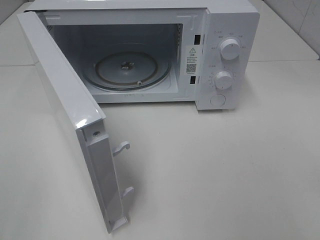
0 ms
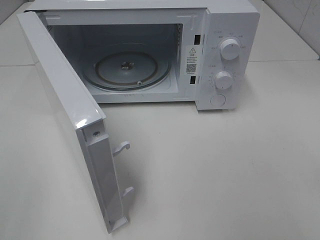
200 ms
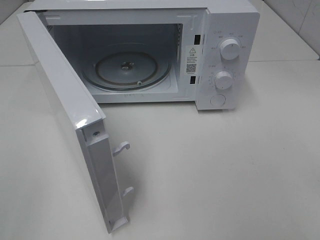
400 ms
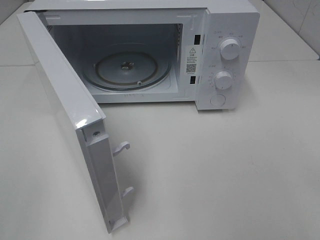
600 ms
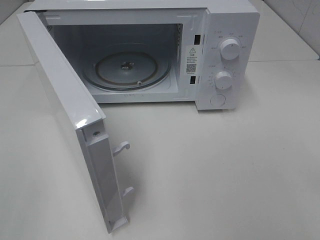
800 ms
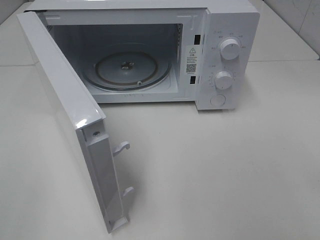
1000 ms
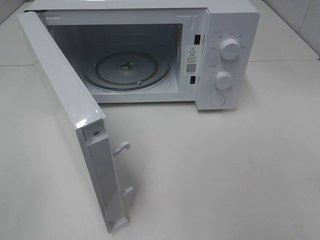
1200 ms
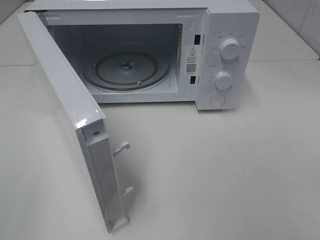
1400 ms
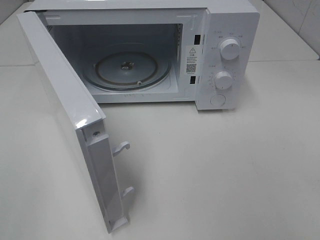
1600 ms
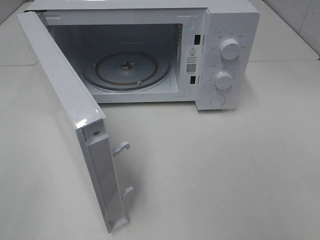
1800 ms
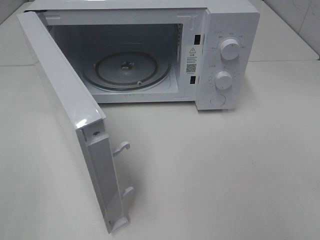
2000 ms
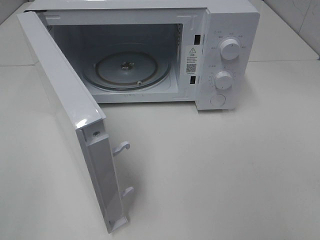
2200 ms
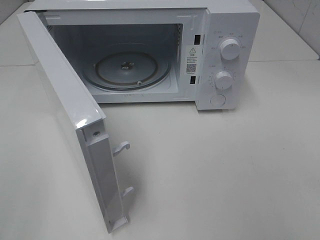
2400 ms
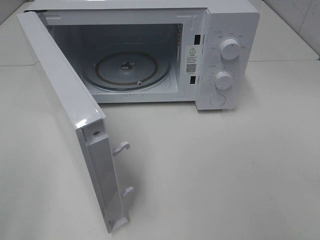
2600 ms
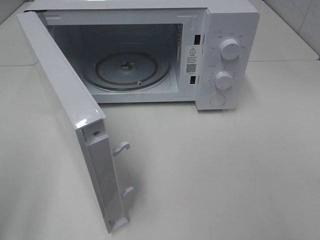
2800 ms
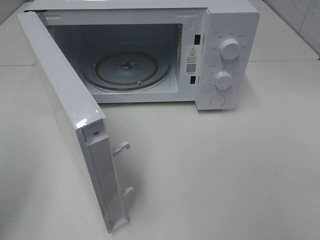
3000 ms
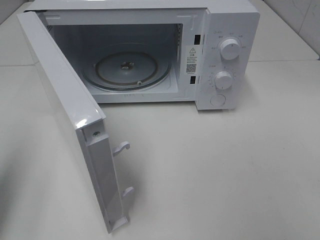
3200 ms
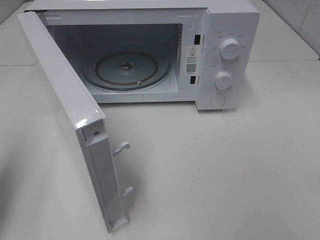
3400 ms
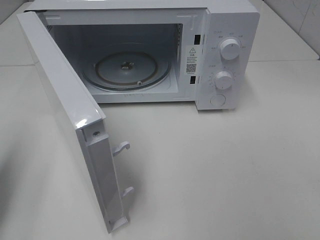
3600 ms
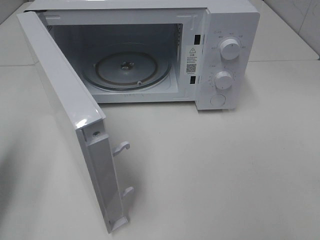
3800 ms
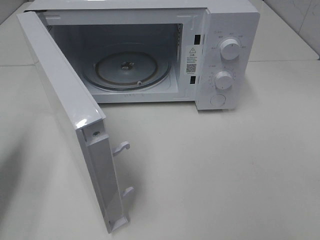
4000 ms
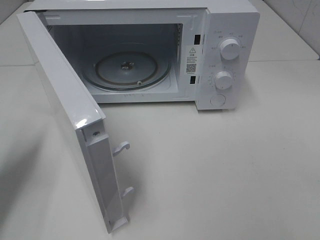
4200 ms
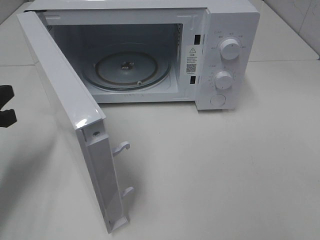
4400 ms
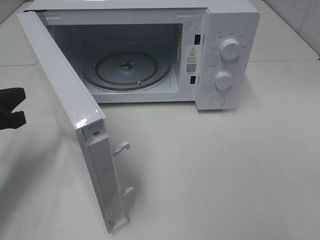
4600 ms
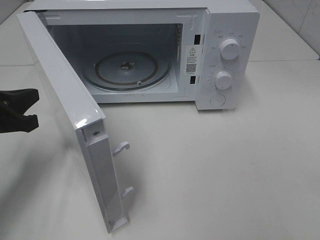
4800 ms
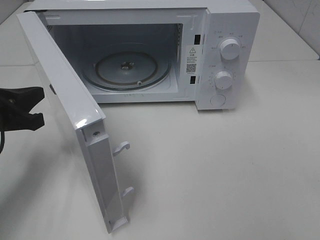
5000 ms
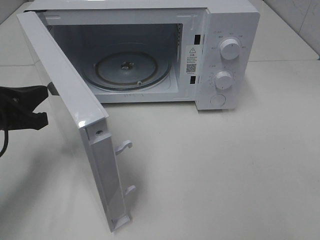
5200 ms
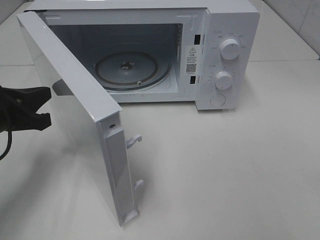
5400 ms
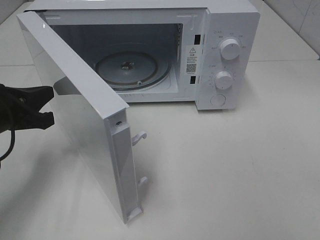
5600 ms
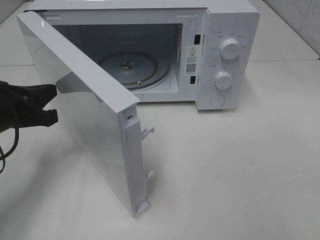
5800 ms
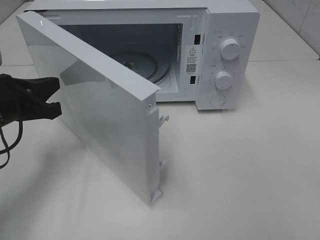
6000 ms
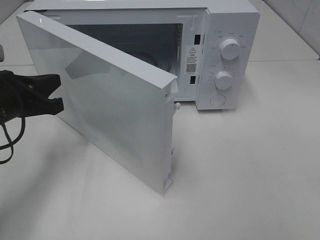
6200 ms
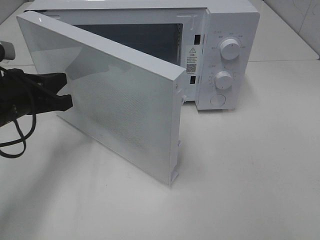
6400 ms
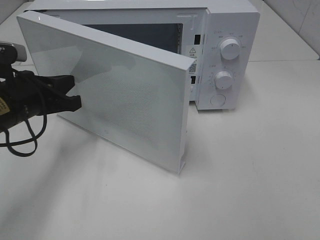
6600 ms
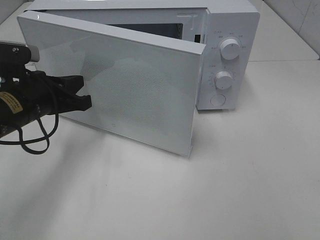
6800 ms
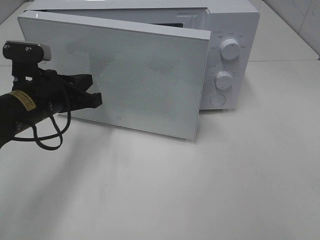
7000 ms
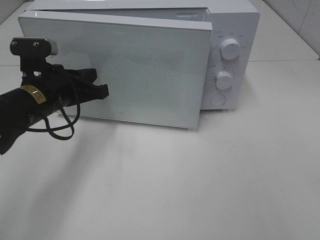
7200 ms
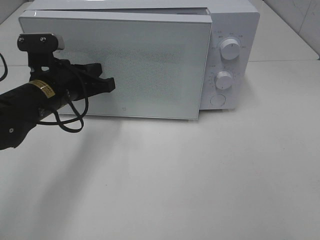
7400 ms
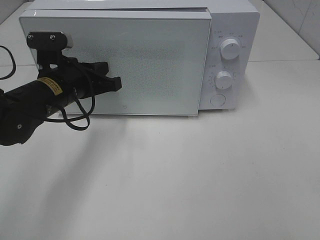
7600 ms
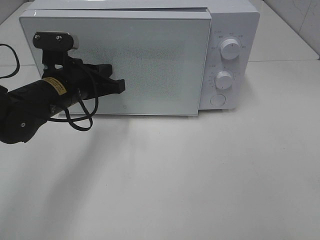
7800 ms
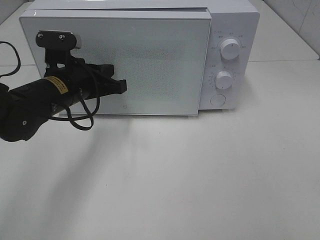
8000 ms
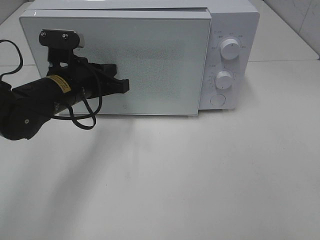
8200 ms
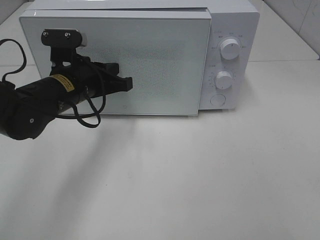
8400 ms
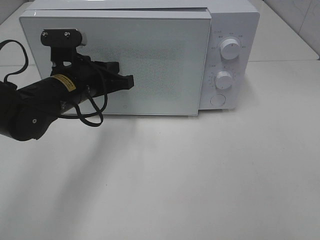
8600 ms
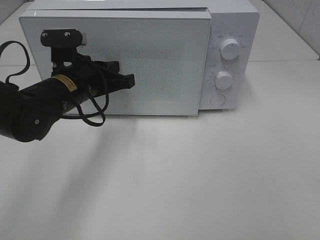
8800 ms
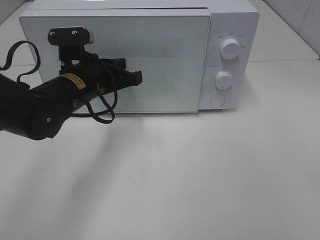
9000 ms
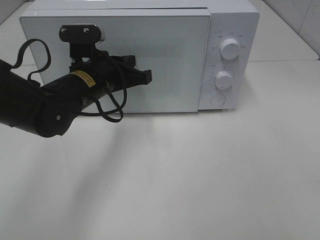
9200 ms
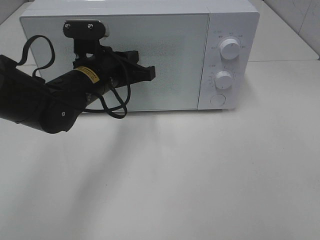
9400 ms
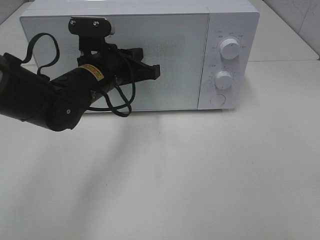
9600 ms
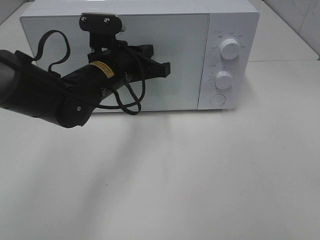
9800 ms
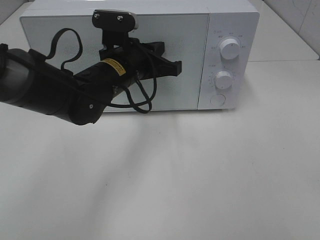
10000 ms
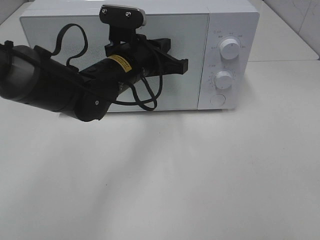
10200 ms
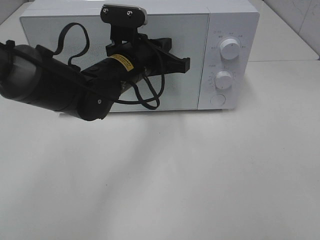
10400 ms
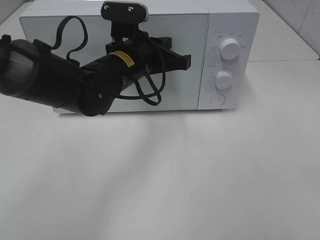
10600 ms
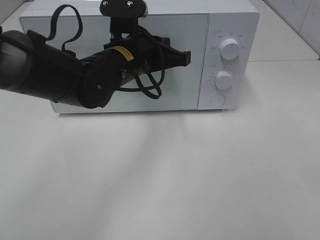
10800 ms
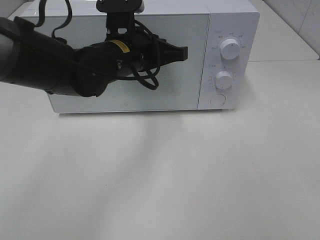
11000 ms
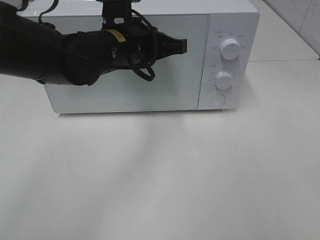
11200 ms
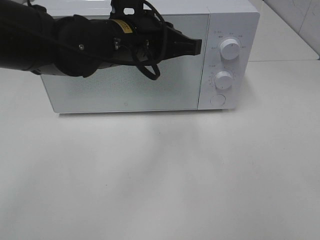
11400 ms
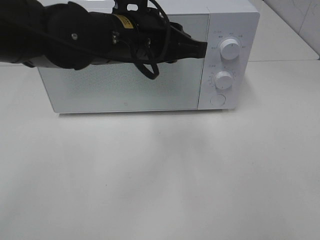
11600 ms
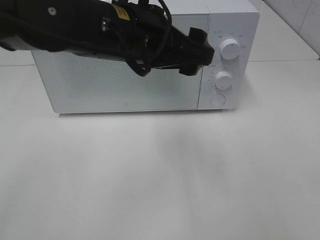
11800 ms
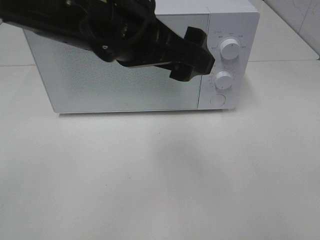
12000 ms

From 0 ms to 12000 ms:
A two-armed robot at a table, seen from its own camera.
Task of the whole recording: Heat the burger.
Step, from 0 ms to 9600 ms: Left hand: close the microwave door.
From 0 ms to 1600 ms: Neither gripper changes place.
From 1600 ms to 3000 ms: The left gripper travels forward by some 10 cm, and closes up.
From 3000 ms to 4400 ms: The left gripper is displaced downward and forward by about 20 cm, and closes up.
From 4400 ms to 6000 ms: The left gripper moves to the right, approximately 5 cm.
From 6000 ms to 7600 ms: The left gripper is displaced to the right and forward by roughly 10 cm.
From 7600 ms to 9000 ms: There are only small adjustments of the grippers.
From 9000 ms to 10400 ms: The left gripper is displaced to the right by about 5 cm.
From 10400 ms to 12000 ms: The left gripper heads upward and backward, covering approximately 15 cm, and opens up.

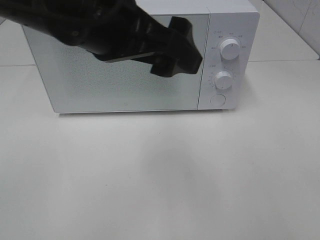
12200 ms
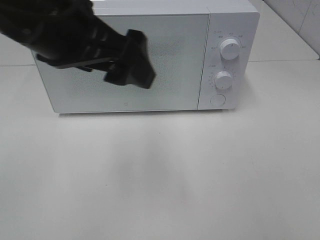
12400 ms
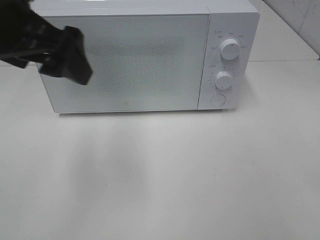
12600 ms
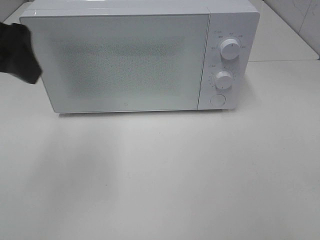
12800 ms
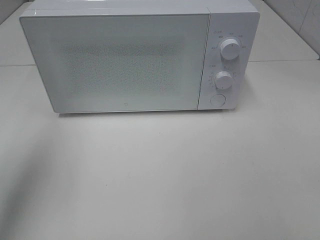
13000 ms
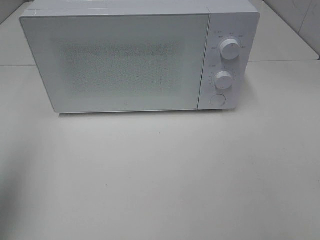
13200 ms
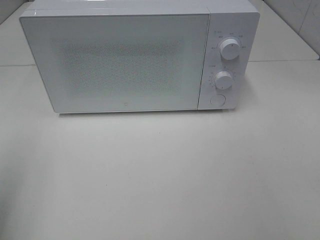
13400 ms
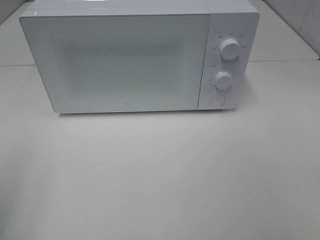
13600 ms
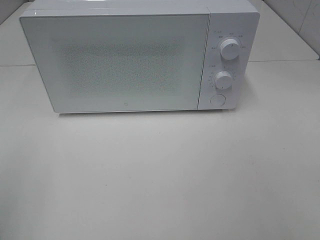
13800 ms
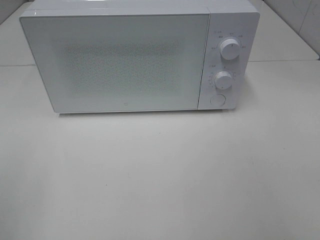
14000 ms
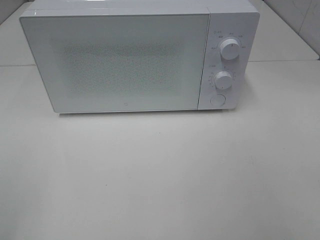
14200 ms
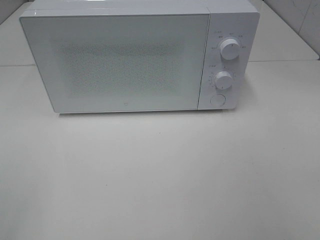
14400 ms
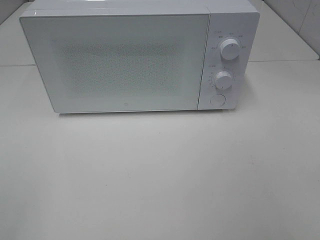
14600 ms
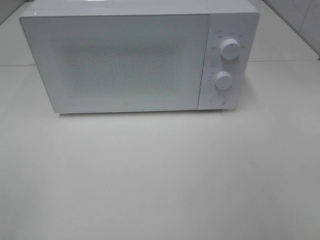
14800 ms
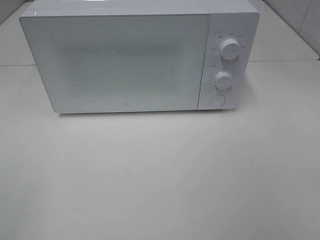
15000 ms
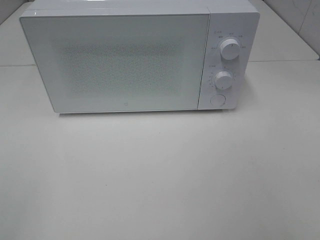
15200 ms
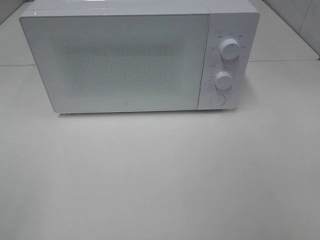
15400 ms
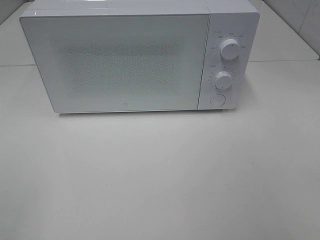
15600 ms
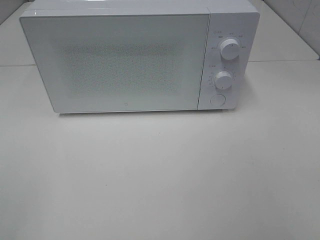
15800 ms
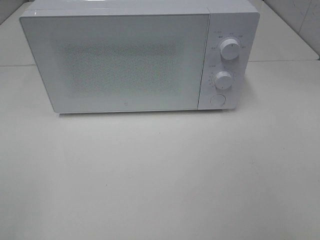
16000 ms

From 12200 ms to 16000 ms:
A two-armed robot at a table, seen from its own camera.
Task of the whole recording: Heat the burger.
From 12200 ms to 13400 ms: The left gripper heads to the left and backward, covering approximately 30 cm.
From 14800 ms to 16000 ms: Both grippers stay put.
